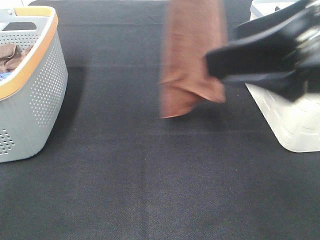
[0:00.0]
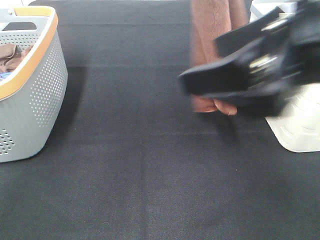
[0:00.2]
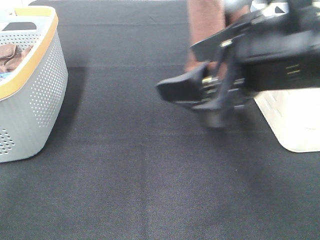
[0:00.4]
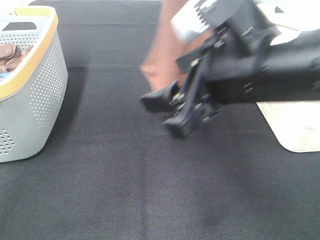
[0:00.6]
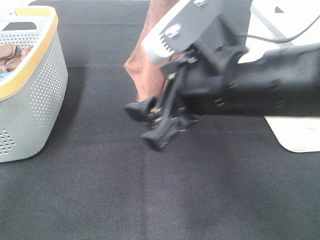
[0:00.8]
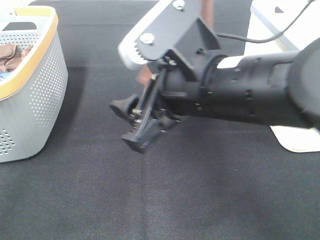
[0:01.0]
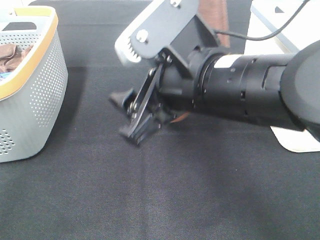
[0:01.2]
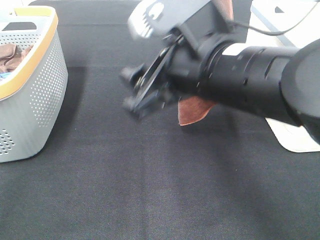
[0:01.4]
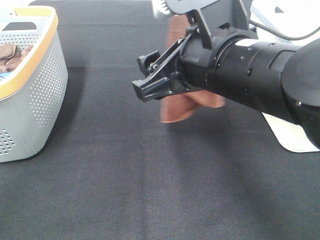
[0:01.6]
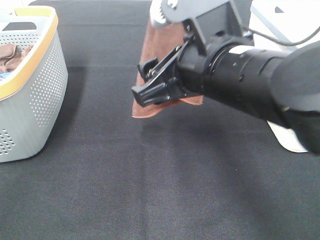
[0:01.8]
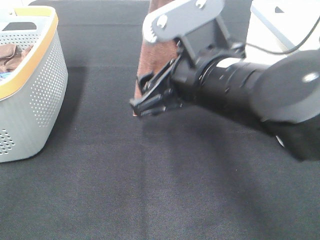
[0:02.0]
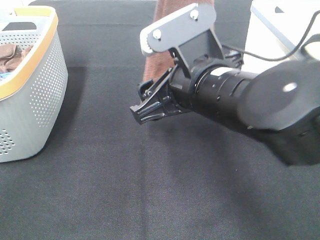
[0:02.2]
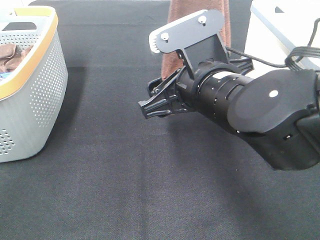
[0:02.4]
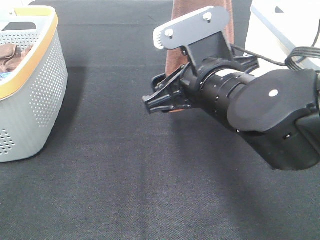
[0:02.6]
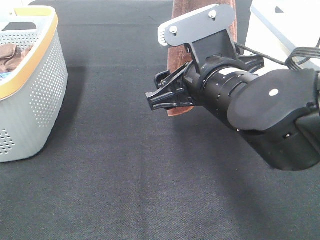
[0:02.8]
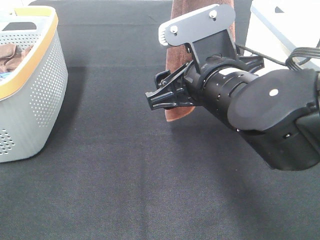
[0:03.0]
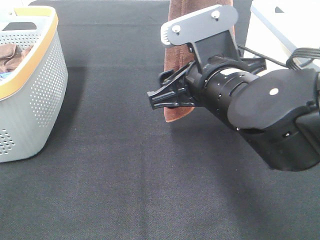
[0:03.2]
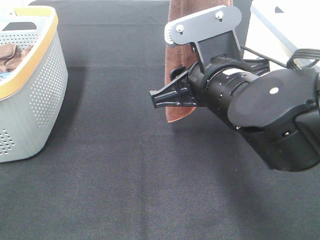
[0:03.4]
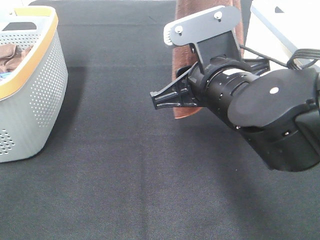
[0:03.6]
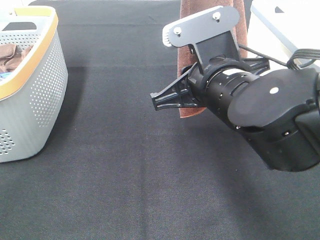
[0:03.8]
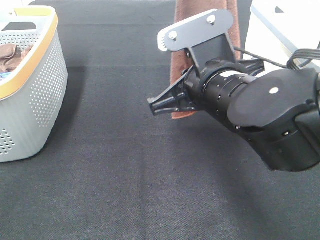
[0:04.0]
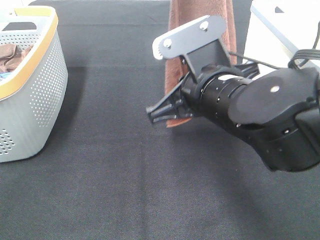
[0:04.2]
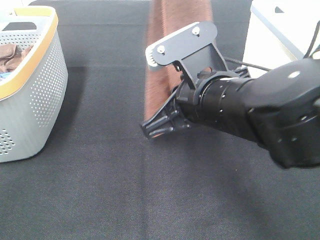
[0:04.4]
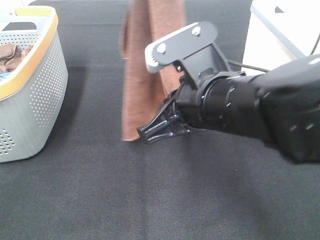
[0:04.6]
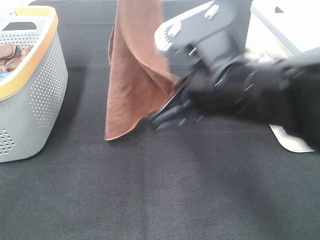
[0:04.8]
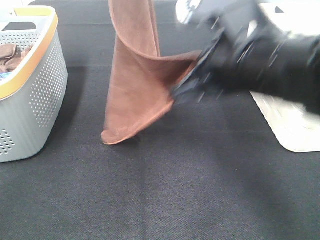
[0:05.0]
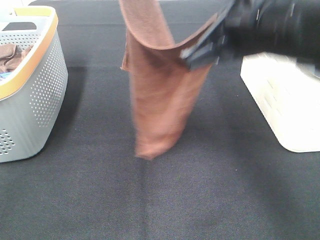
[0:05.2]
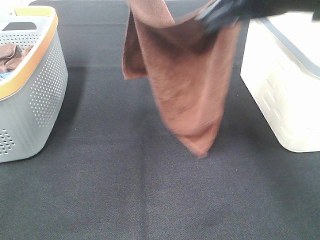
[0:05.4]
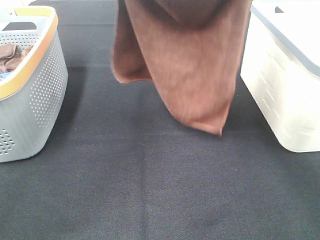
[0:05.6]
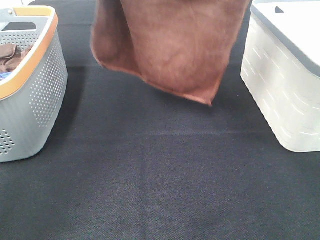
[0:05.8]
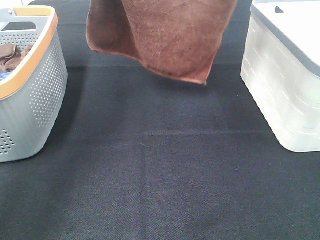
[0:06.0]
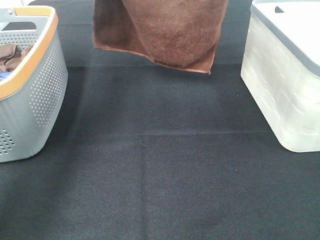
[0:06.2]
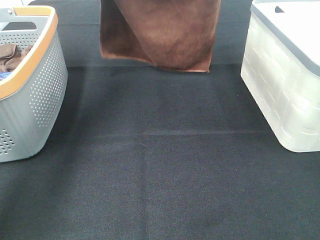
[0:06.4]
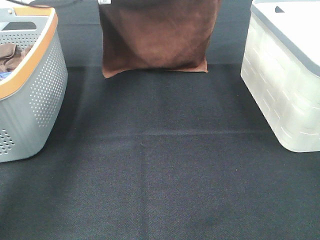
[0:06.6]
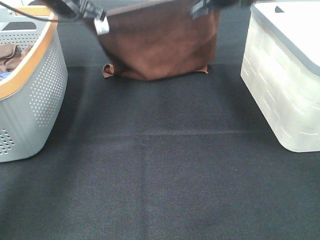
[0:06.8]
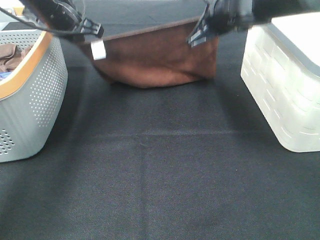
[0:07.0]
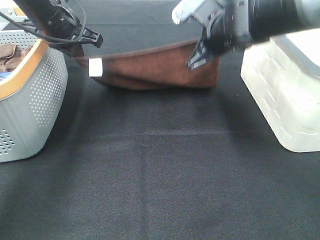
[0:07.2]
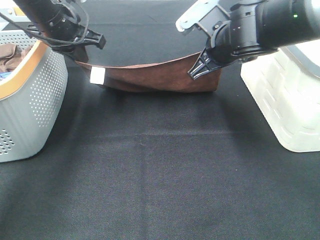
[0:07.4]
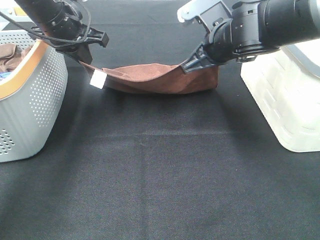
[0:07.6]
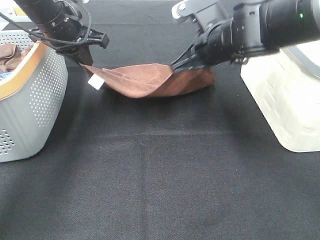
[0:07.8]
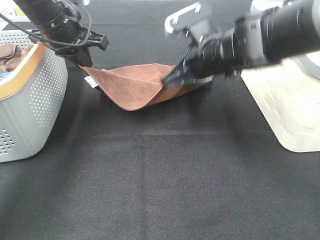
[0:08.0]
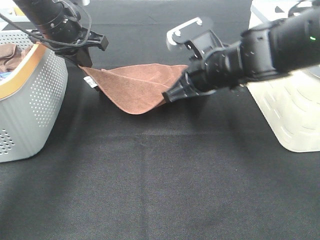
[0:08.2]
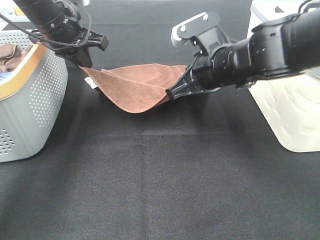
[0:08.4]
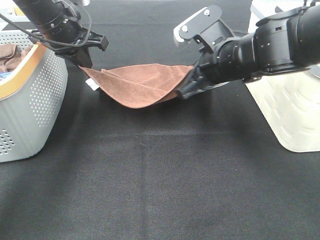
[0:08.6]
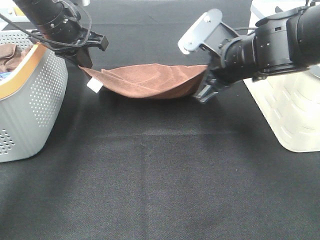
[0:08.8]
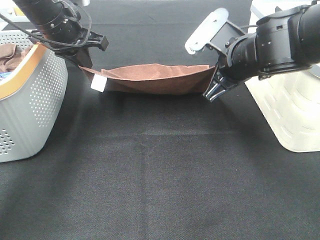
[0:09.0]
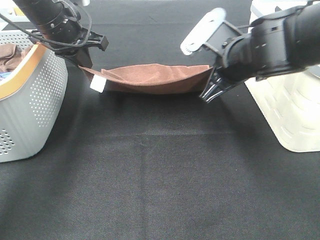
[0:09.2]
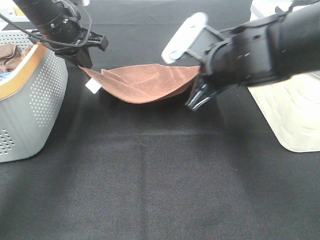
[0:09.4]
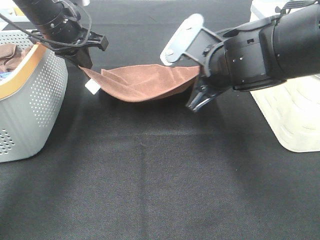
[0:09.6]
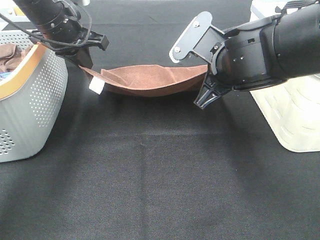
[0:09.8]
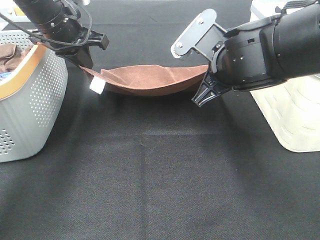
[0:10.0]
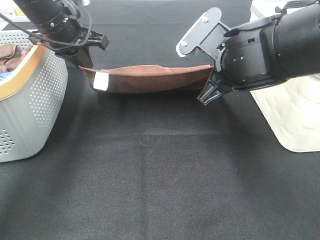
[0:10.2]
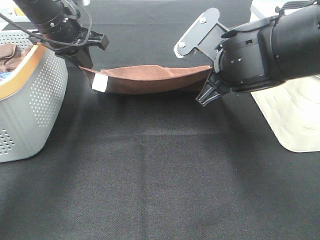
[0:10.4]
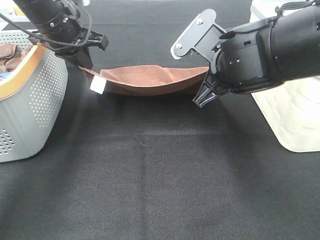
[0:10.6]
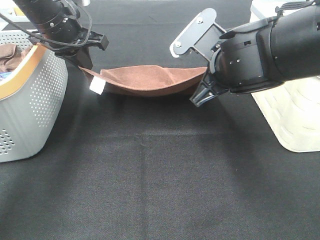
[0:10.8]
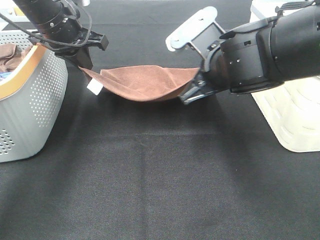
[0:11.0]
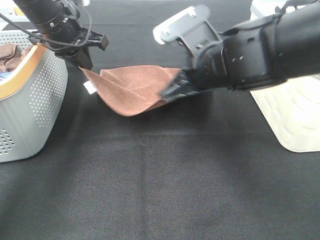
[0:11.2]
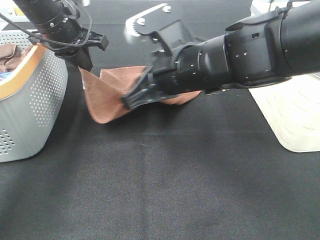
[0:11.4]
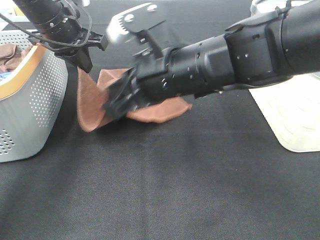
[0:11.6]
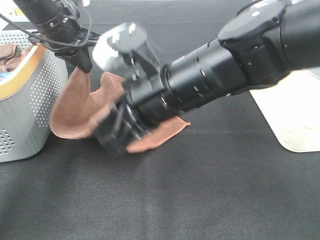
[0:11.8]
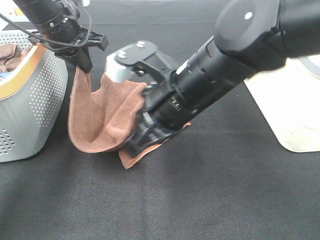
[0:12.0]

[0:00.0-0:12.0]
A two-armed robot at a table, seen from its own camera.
Task of the whole recording: Remove the towel and place it.
Step, 0:00.0 to 0:02.4: Right hand: grab a corner of the brown towel and straighten it.
Step, 0:02.6 to 0:10.4: Left hand: spread the brown towel flat on the table.
Step, 0:02.6 to 0:10.4: Right hand: spread the brown towel flat on the table.
0:00.0 to 0:01.6: The right gripper heads to the left and downward, covering roughly 10 cm.
0:03.0 to 0:04.4: The right gripper closes its fingers.
0:04.4 to 0:06.0: The left gripper is displaced forward, to the left and downward by roughly 20 cm. The right gripper is displaced forward, upward and to the right by some 25 cm.
0:06.0 to 0:07.6: Both grippers move downward, about 15 cm.
0:09.0 to 0:10.4: The grippers move only a little.
0:10.4 to 0:12.0: The right gripper goes some 10 cm to the left and backward.

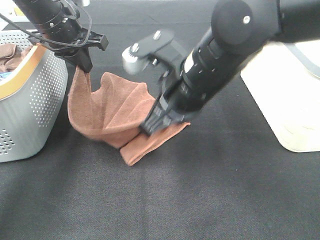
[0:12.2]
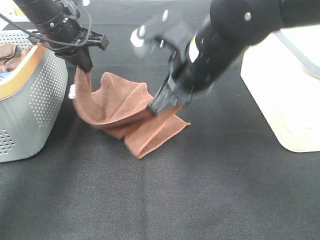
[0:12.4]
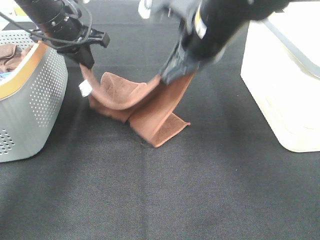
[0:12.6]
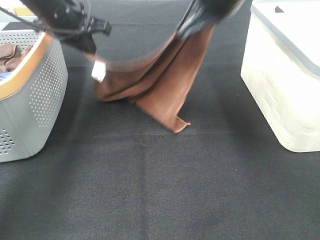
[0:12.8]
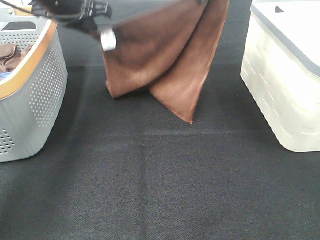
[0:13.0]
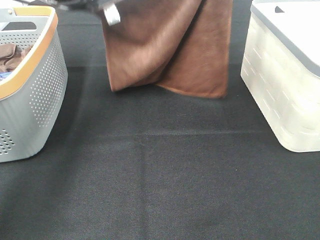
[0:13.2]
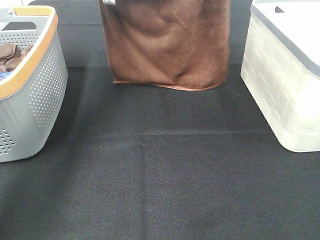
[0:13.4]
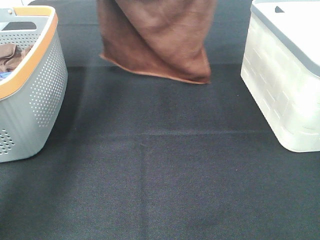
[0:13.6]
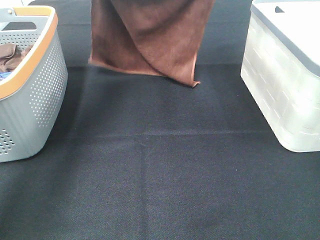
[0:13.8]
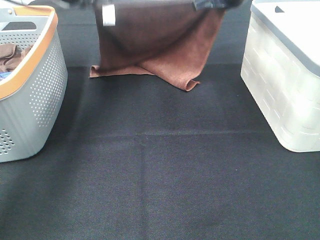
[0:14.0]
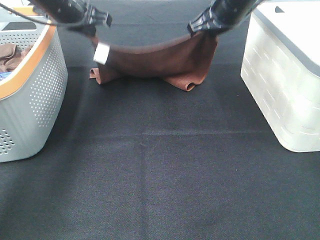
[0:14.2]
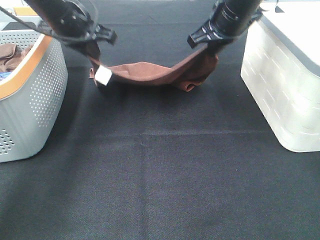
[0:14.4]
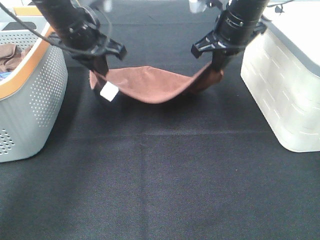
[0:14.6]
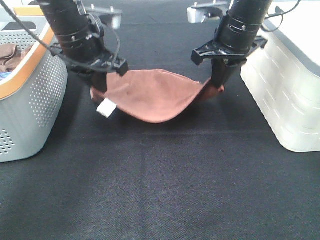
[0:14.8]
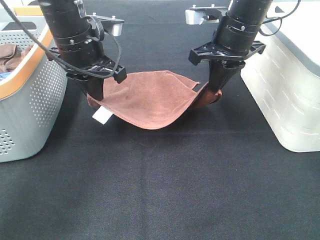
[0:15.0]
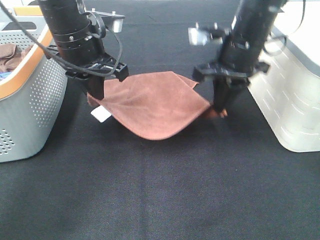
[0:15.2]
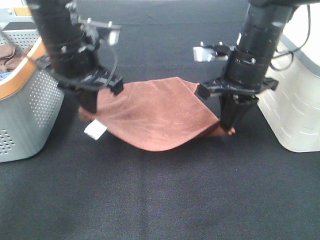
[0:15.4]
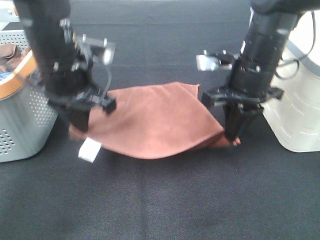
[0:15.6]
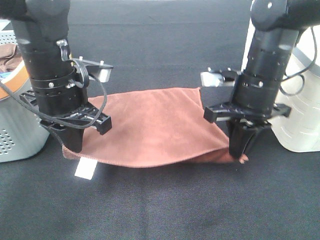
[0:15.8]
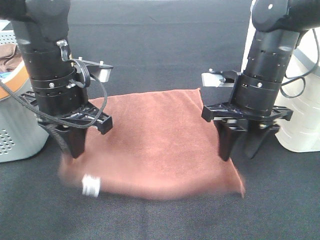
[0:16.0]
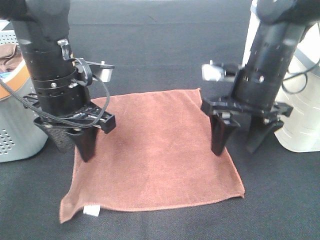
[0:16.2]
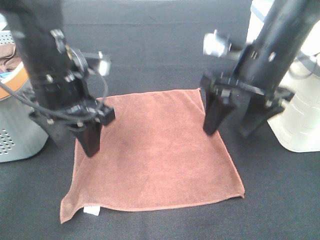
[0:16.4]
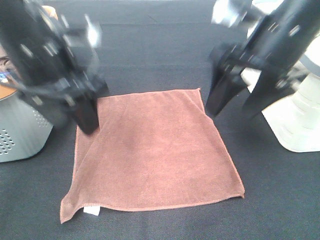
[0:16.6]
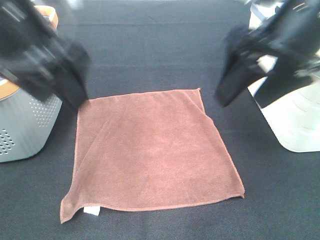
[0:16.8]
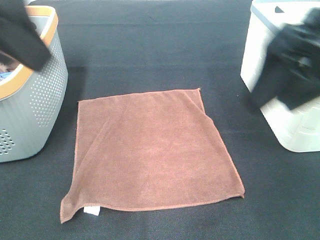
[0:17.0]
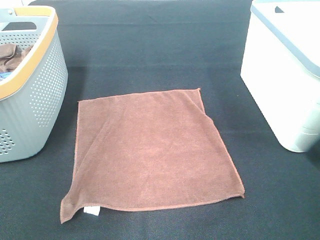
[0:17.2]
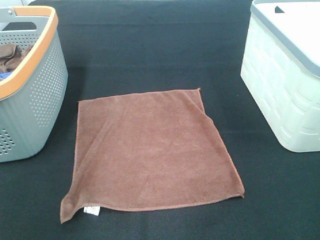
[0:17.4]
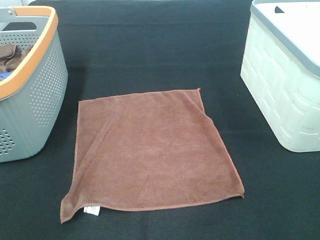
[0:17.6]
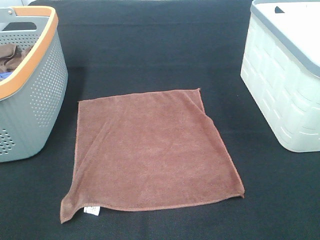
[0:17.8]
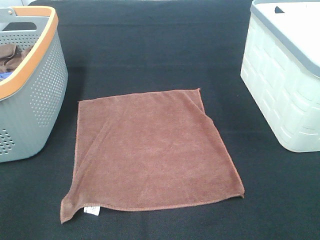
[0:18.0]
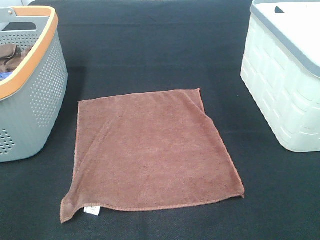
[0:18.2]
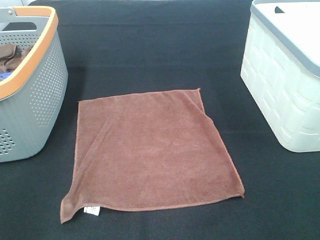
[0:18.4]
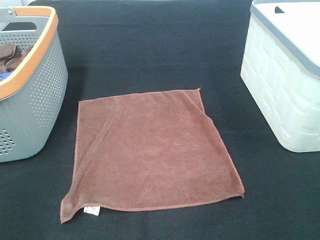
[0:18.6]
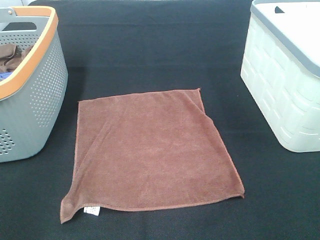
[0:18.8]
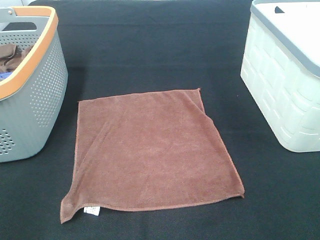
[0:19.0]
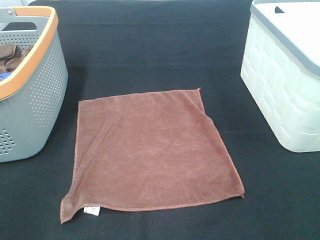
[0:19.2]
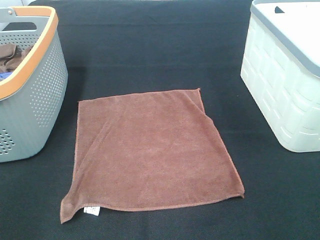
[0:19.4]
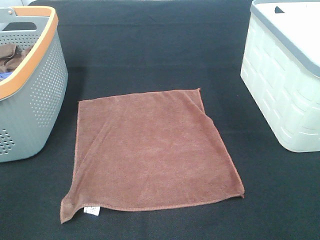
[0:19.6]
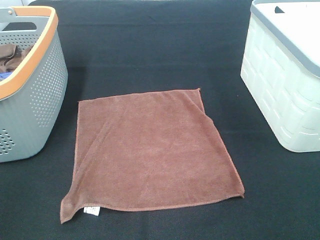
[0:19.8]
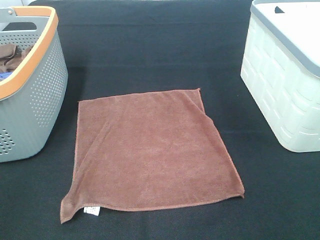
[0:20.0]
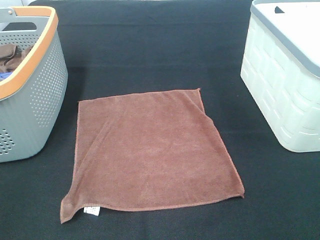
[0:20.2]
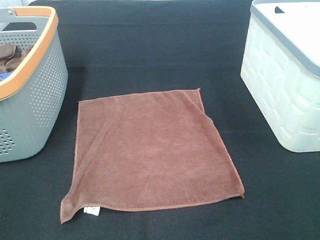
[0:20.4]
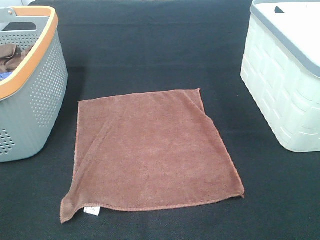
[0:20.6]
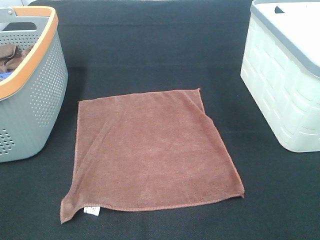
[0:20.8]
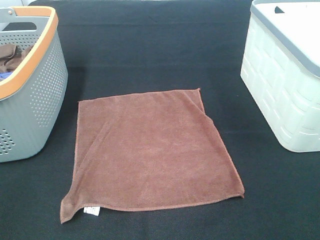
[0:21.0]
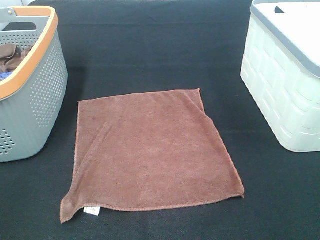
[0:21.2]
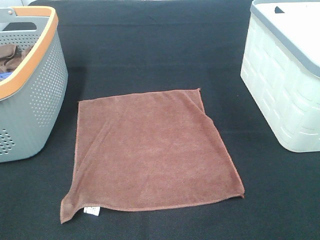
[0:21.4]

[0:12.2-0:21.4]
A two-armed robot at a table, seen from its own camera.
Task of the whole recording: Remove the towel and place it.
0:12.2 to 0:13.8: The left gripper moves upward and forward, about 10 cm, while the right gripper travels forward and to the right by some 20 cm.
0:13.8 to 0:15.2: The left gripper goes roughly 15 cm backward, downward and to the right; the right gripper heads backward and downward, covering about 15 cm.
0:15.2 to 0:16.8: The two grippers go roughly 15 cm backward and upward. The left gripper opens. The right gripper opens its fingers.
0:16.8 to 0:18.4: The left gripper moves backward and to the left, approximately 25 cm. The right gripper moves backward and to the right, approximately 25 cm.

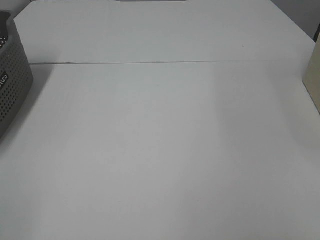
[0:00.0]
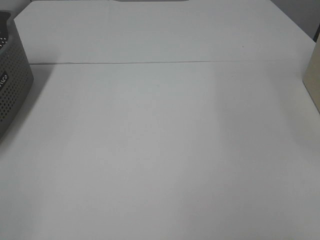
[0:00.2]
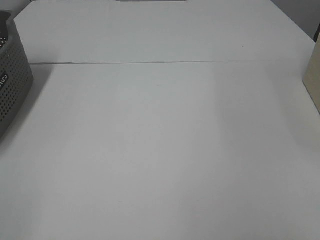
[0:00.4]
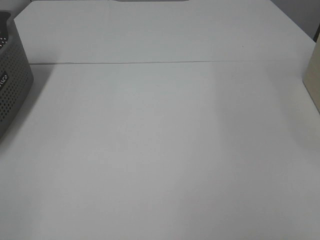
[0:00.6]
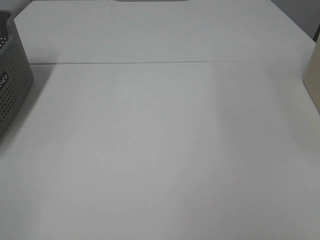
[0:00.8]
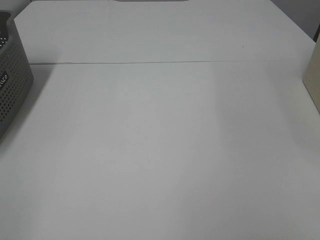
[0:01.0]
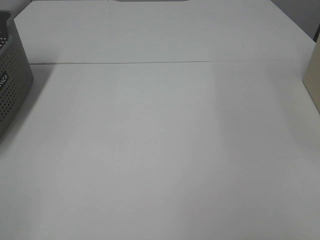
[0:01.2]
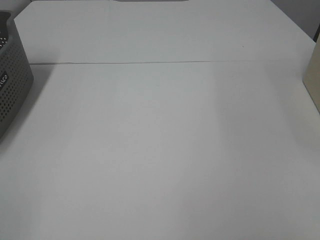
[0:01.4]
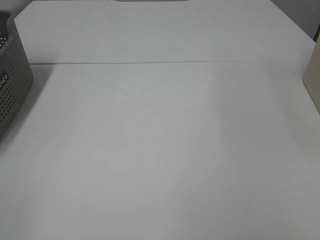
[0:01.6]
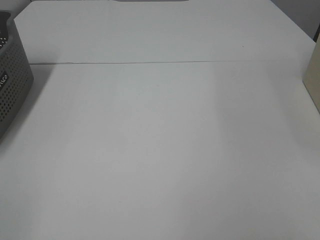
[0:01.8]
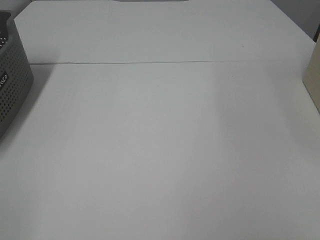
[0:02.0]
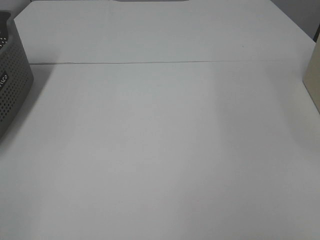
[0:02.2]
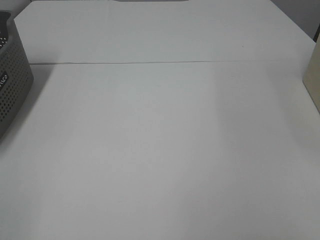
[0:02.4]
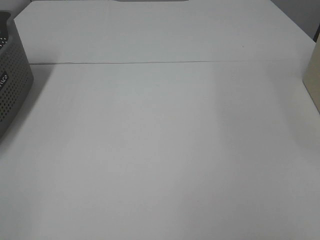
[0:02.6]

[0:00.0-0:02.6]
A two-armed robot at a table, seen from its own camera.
Task of the whole recording: Remove the towel and place it.
0:00.0 to 0:02.6: Both grippers stay put.
